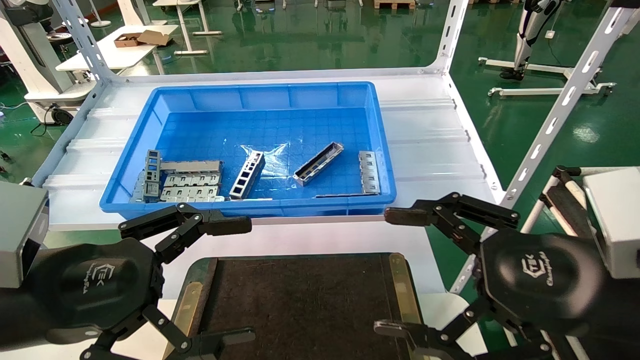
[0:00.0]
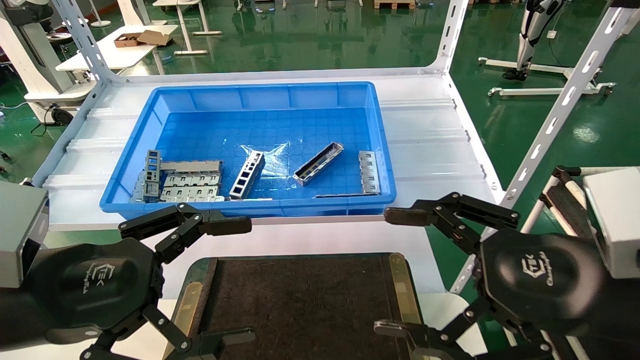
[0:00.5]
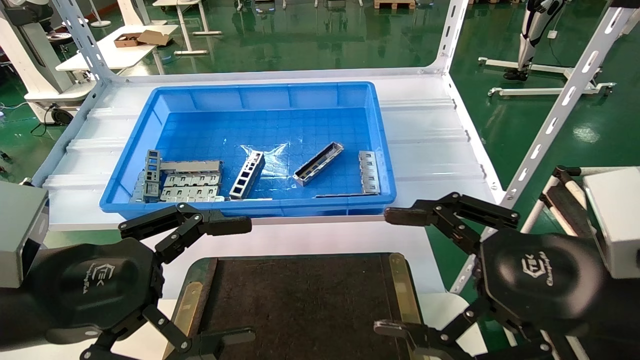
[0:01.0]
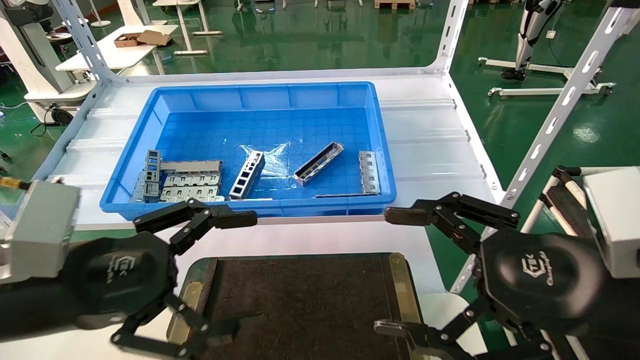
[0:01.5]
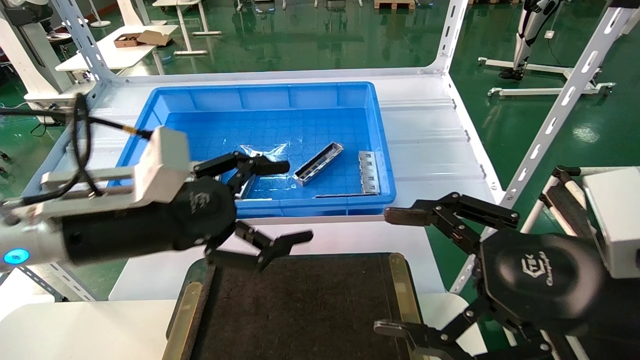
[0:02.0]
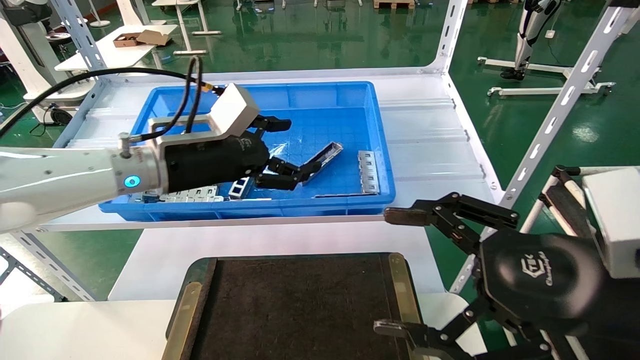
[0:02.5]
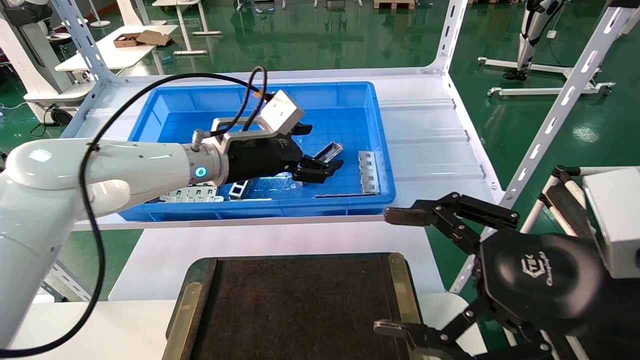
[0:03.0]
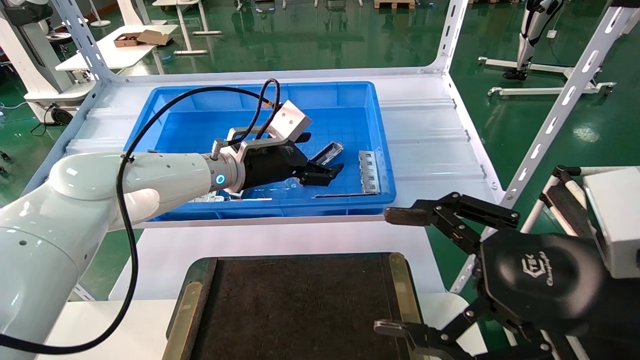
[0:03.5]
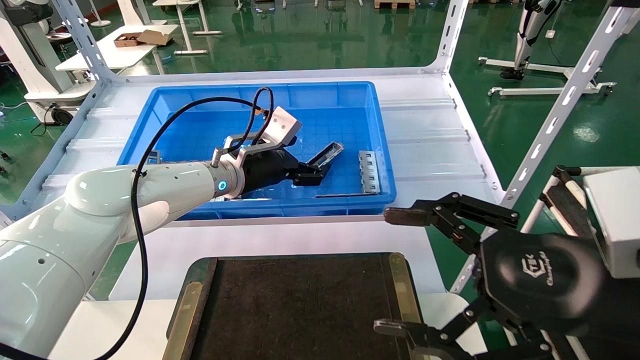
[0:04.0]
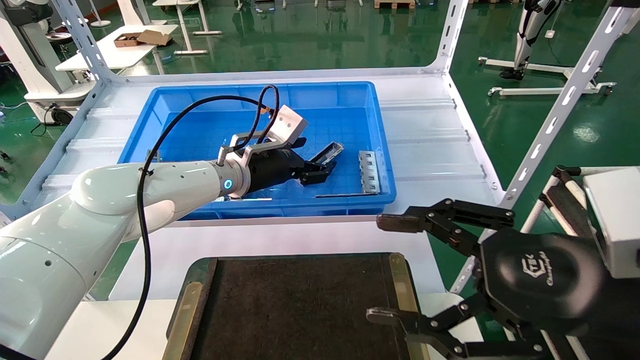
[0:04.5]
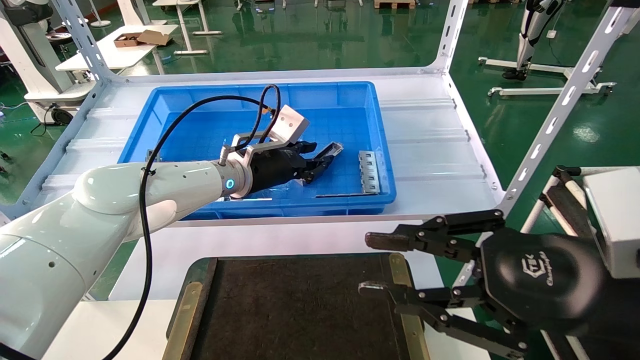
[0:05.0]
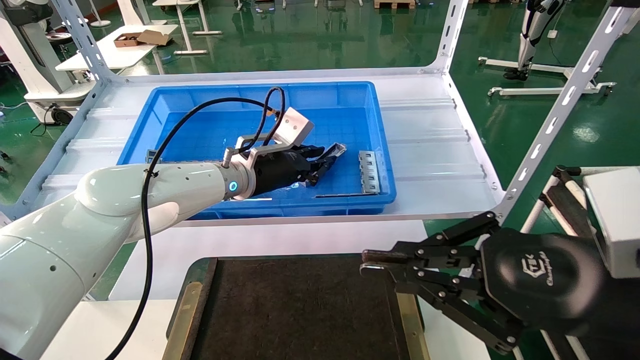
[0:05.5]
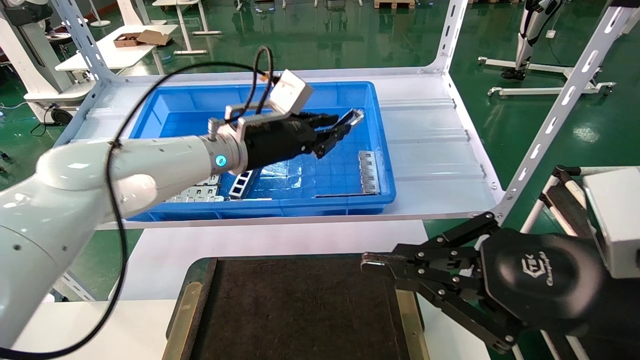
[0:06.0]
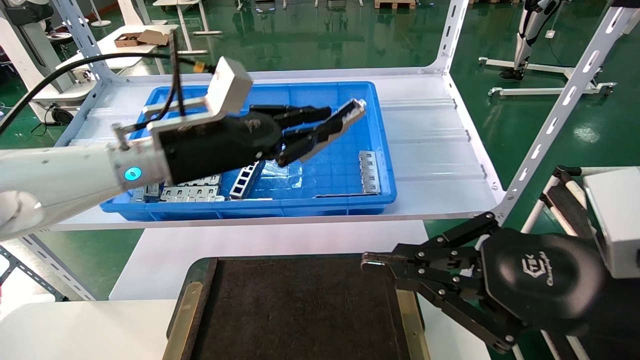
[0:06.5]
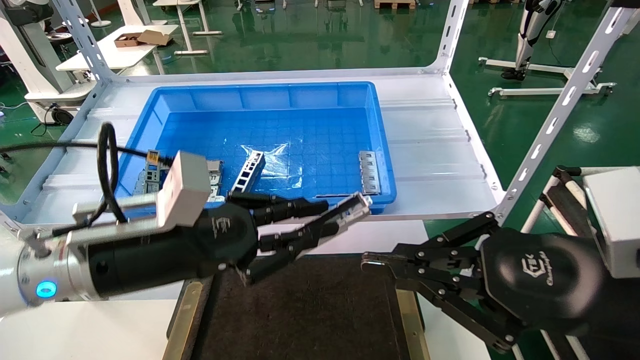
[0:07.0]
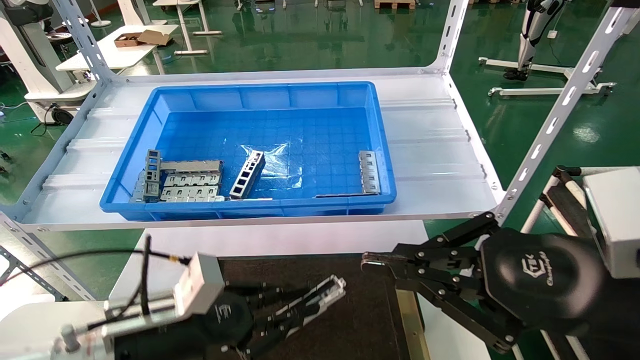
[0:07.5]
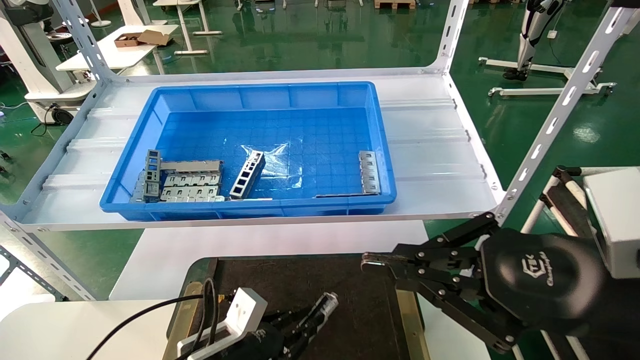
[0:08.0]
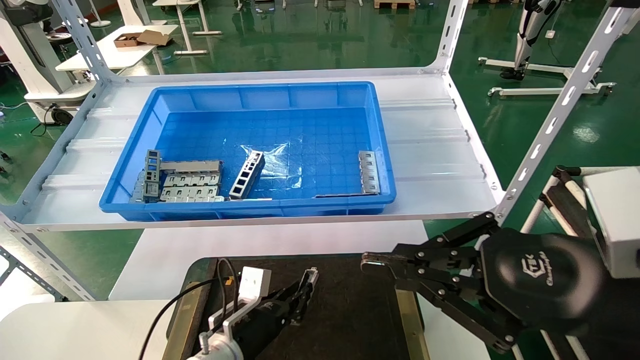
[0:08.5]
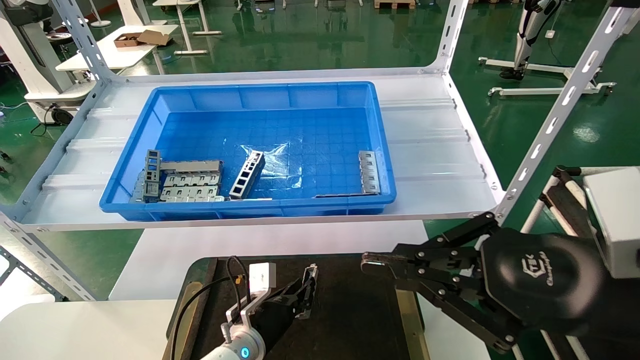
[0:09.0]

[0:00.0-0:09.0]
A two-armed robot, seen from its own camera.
Task of the whole recording: Grasp the part with one hand and place it on the black container.
Step, 0:02.0 to 0:05.0: Pick up the front USB bracket from the feeding area.
0:00.0 to 0:02.0: The left gripper moves forward, roughly 10 cm.
0:02.0 to 0:04.5: The left gripper is displaced forward and to the right by about 20 cm.
0:04.5 to 0:07.0: The left gripper shifts about 20 cm backward, and closes, while the right gripper closes.
0:07.0 to 0:09.0: The left gripper heads downward and forward, covering about 30 cm.

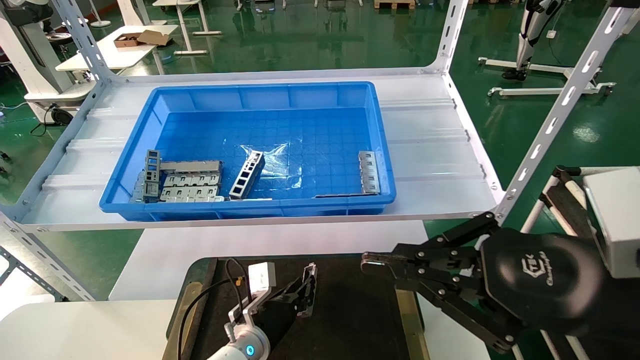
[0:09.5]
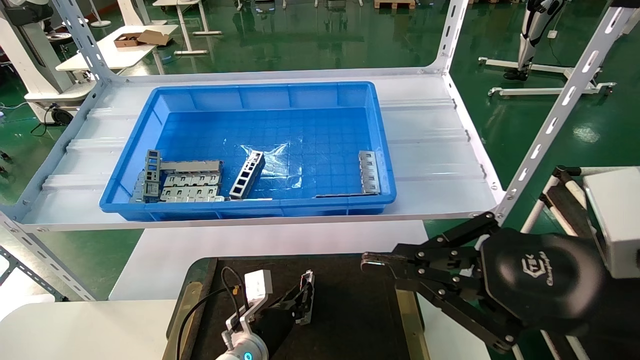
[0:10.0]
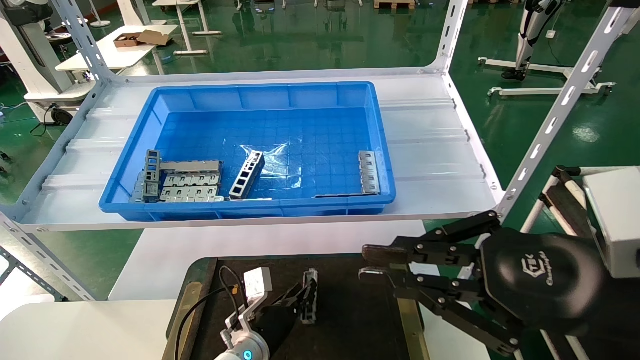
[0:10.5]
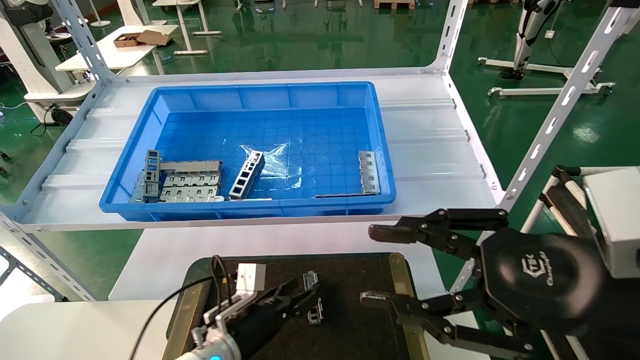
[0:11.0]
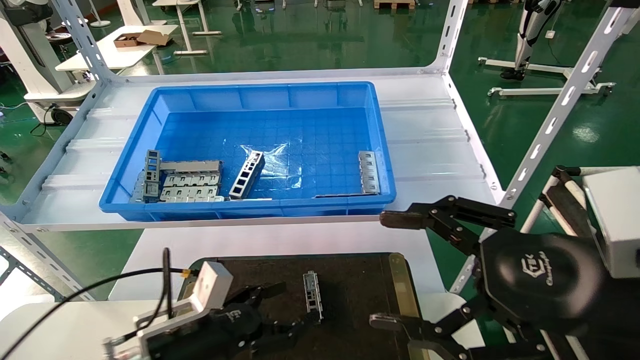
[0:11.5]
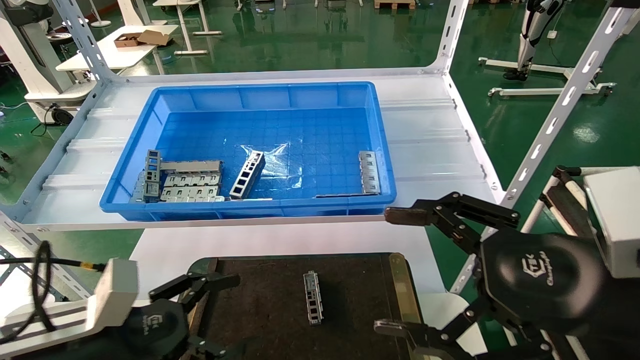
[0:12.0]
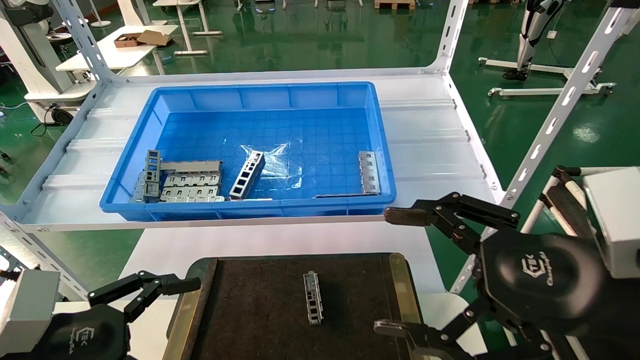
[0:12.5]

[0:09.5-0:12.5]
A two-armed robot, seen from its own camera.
Task of the whole recording: Grasp the part with one hand and place it on the black container.
0:09.5 to 0:11.0: The left gripper shifts by some 5 cm, and opens its fingers.
0:11.0 to 0:12.5: The left gripper travels backward, upward and to the left by roughly 30 cm, and opens its fingers. Meanwhile the right gripper opens.

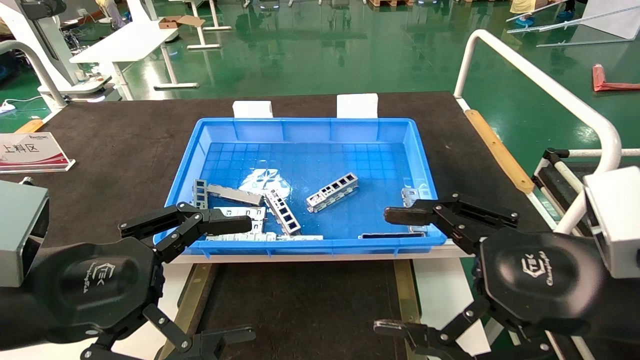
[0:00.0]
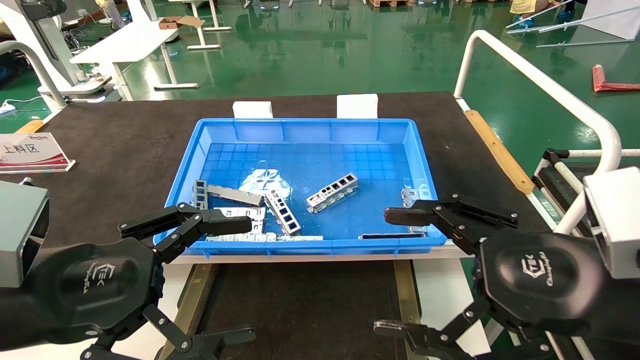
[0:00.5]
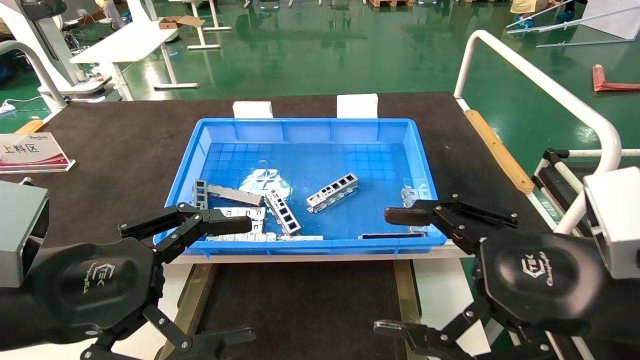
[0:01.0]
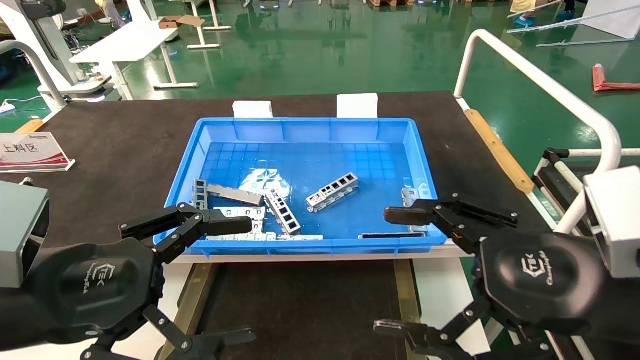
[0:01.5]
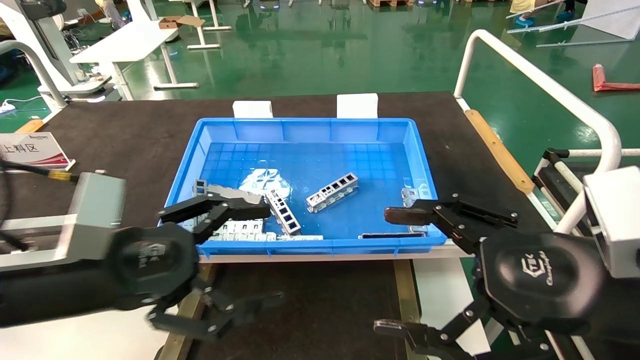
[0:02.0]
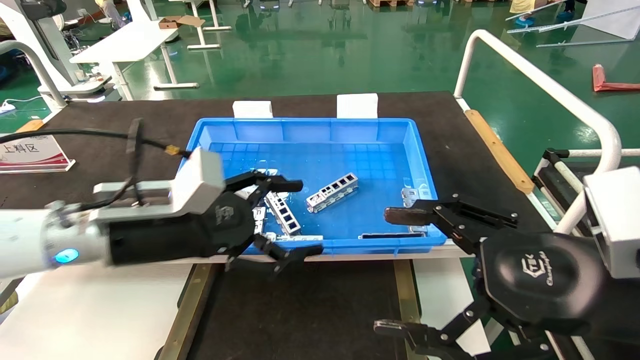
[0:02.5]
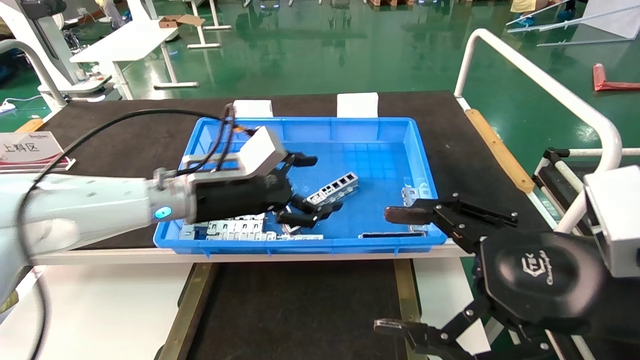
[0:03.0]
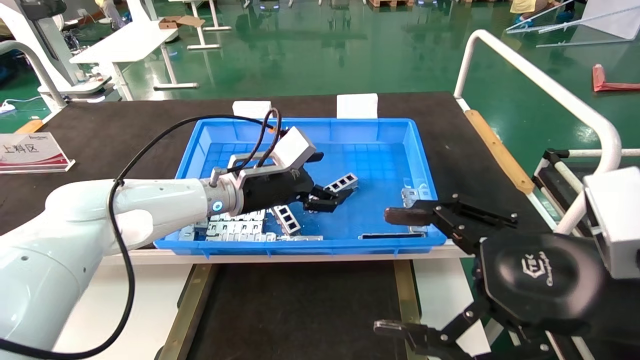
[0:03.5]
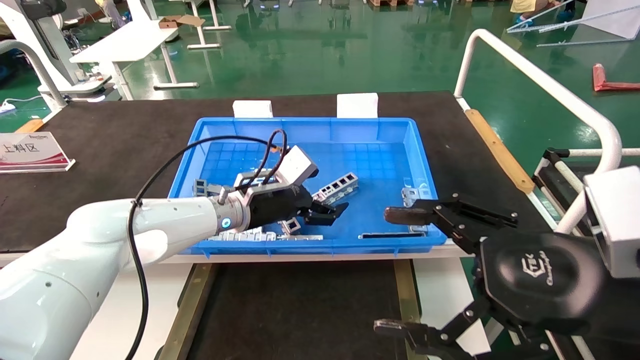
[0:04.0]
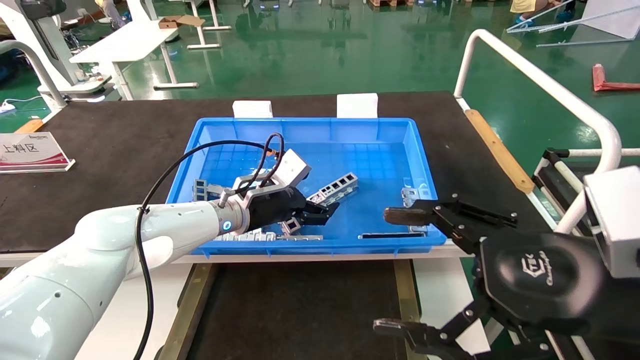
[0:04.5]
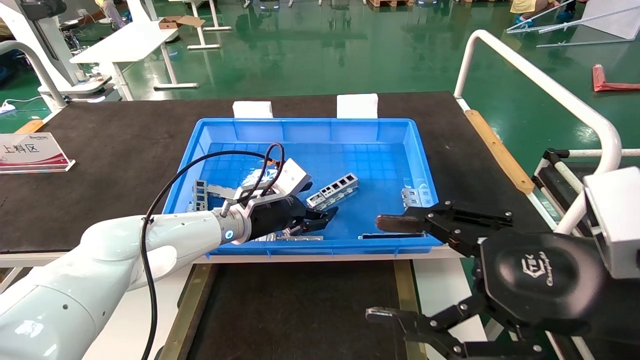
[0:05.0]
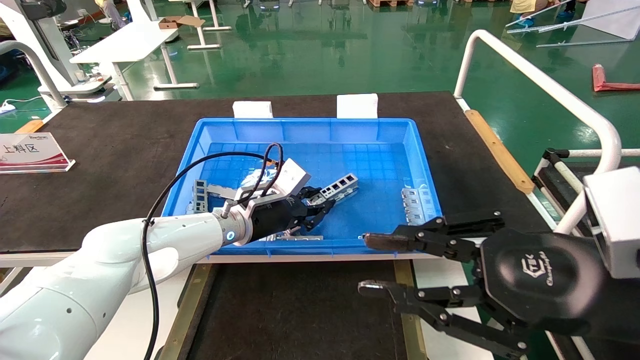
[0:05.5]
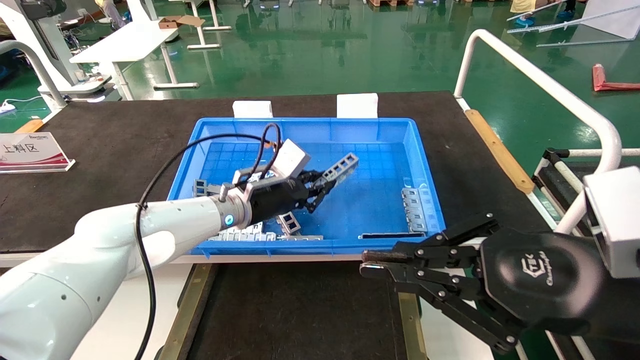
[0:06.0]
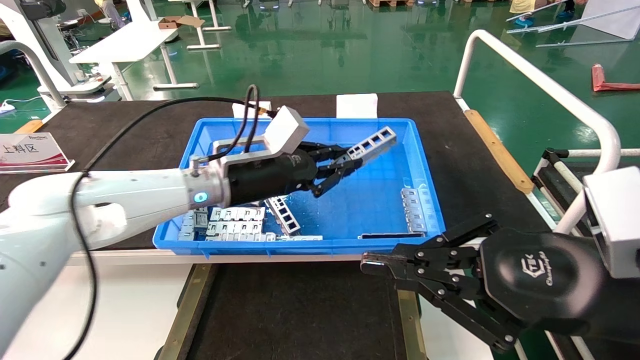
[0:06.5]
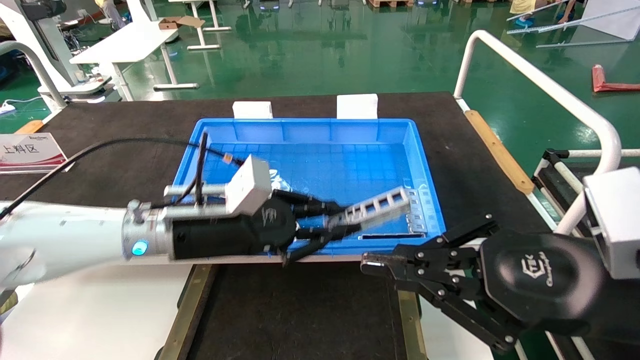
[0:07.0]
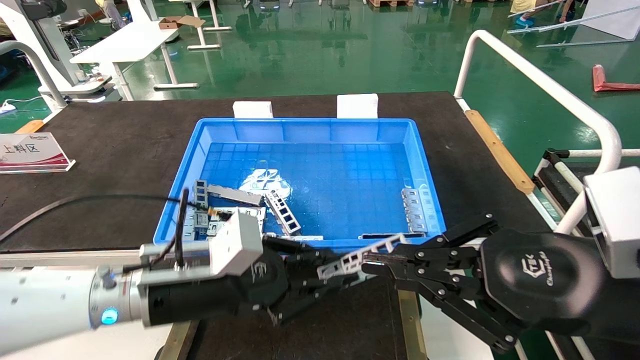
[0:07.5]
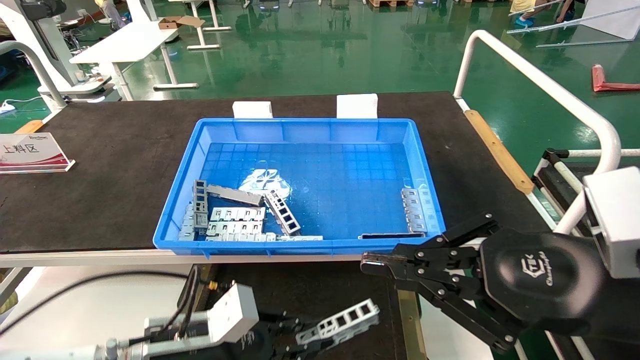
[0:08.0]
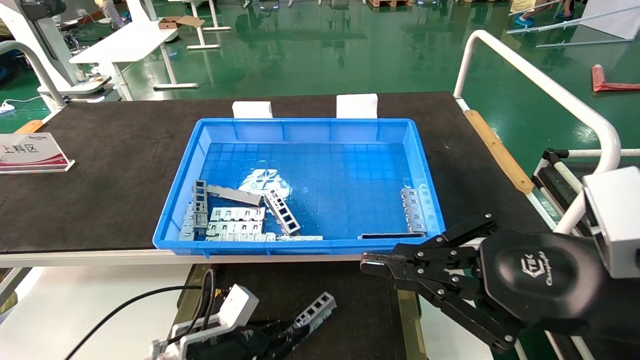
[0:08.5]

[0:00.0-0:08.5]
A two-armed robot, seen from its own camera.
Task of the whole recording: Grasp the part with one hand and place it on the black container.
Step, 0:02.0 to 0:06.0: Pick up the front USB bracket from the feeding area.
0:00.0 to 0:02.0: There are only small adjustments of the grippers.
0:02.0 to 0:04.0: The left gripper shifts some 25 cm forward and to the right.
0:04.0 to 0:06.5: The left gripper ends up about 5 cm from where it was, and closes its fingers. Meanwhile the right gripper closes its fingers.
0:06.5 to 0:08.5: The left gripper is displaced downward by some 25 cm.
